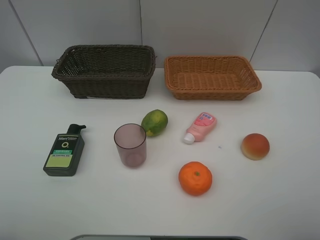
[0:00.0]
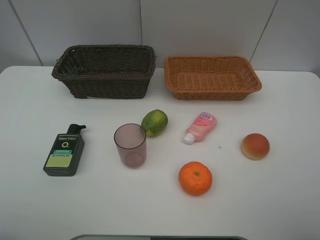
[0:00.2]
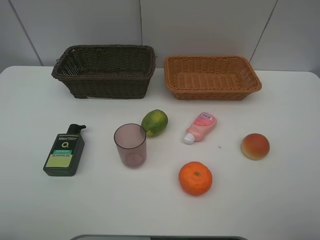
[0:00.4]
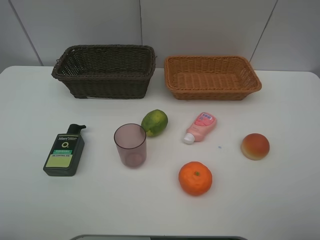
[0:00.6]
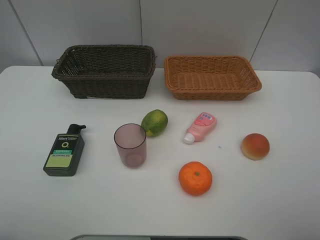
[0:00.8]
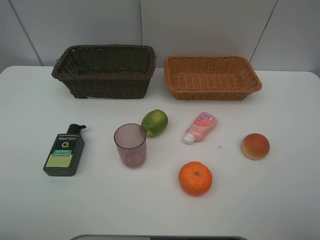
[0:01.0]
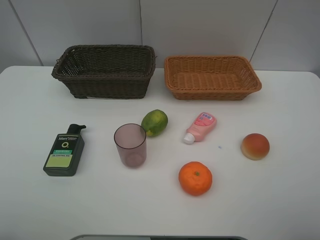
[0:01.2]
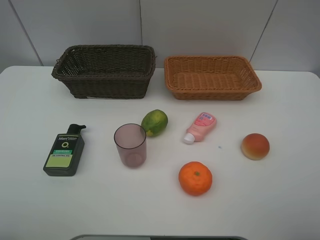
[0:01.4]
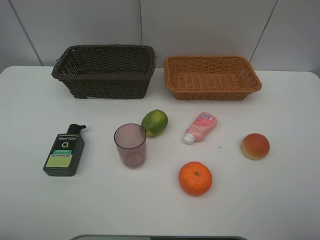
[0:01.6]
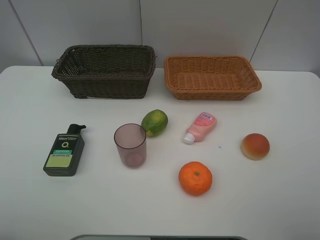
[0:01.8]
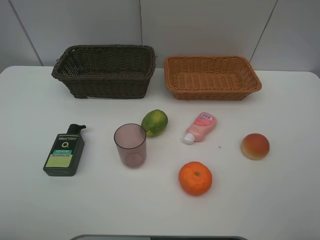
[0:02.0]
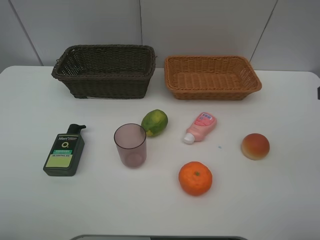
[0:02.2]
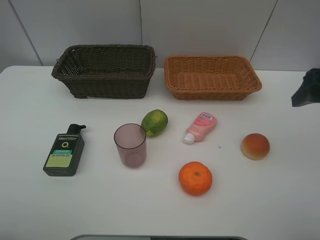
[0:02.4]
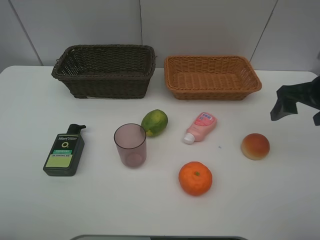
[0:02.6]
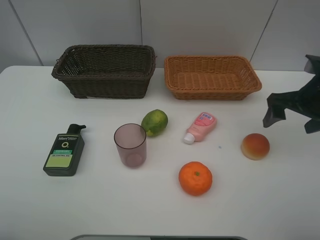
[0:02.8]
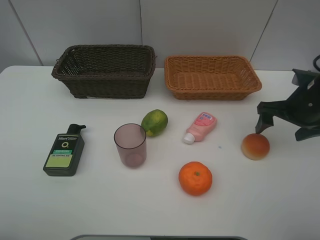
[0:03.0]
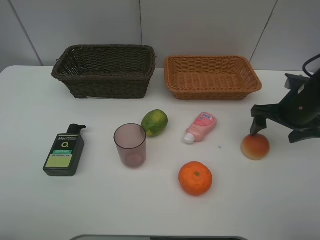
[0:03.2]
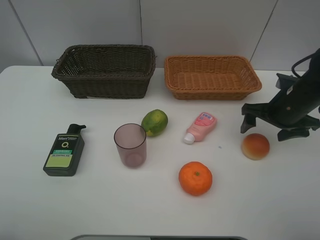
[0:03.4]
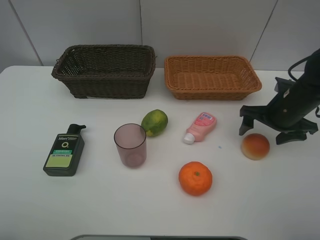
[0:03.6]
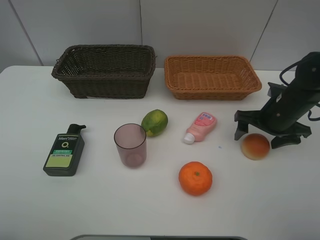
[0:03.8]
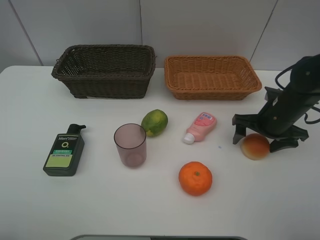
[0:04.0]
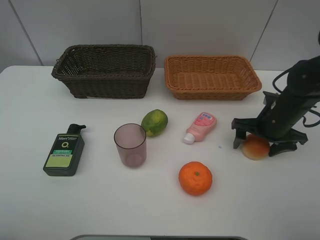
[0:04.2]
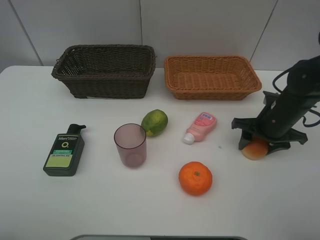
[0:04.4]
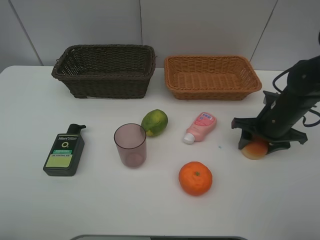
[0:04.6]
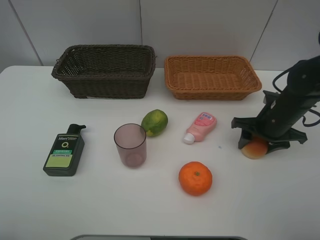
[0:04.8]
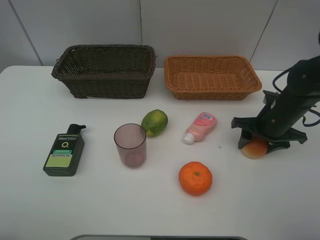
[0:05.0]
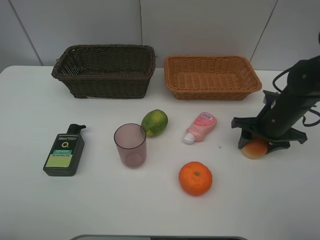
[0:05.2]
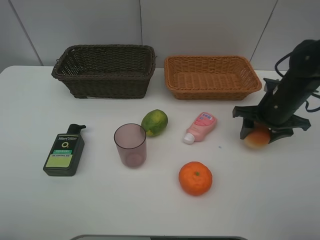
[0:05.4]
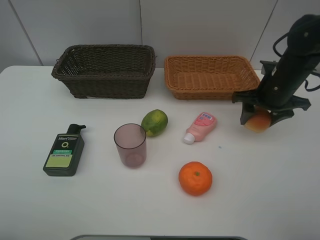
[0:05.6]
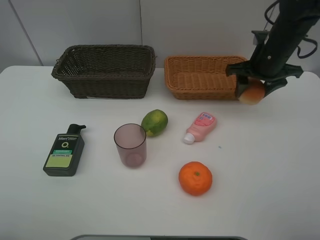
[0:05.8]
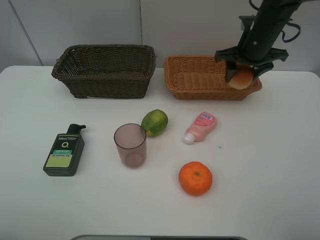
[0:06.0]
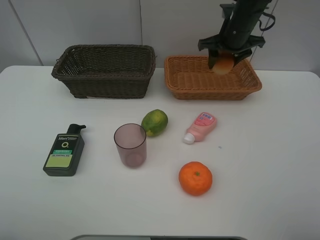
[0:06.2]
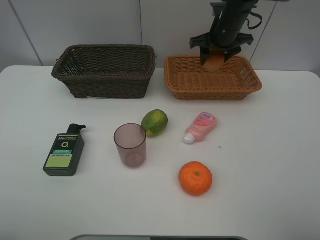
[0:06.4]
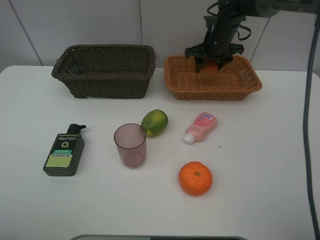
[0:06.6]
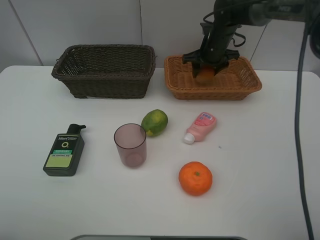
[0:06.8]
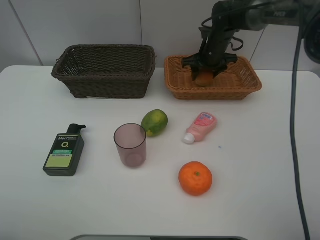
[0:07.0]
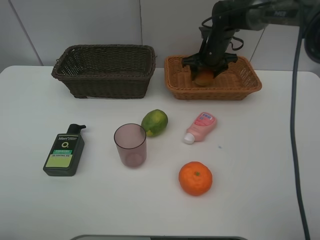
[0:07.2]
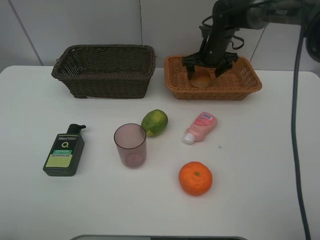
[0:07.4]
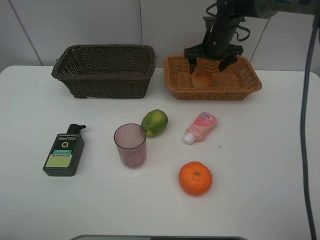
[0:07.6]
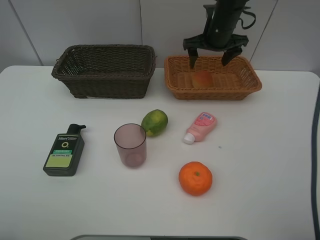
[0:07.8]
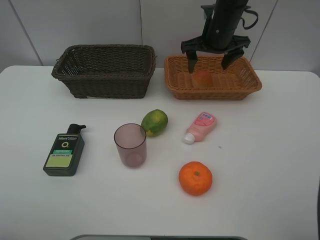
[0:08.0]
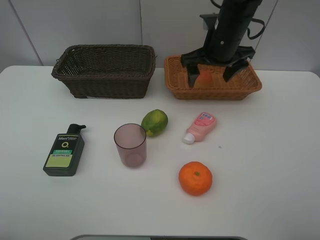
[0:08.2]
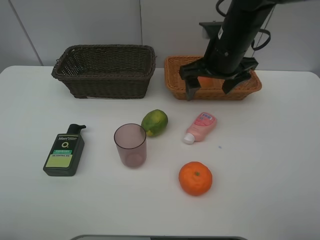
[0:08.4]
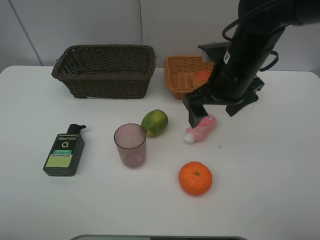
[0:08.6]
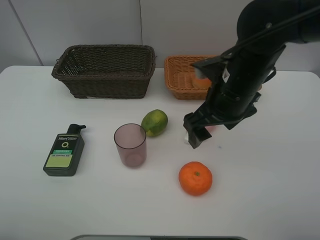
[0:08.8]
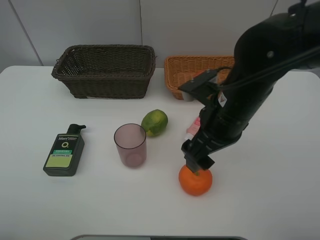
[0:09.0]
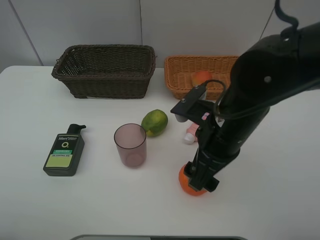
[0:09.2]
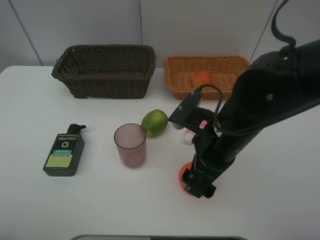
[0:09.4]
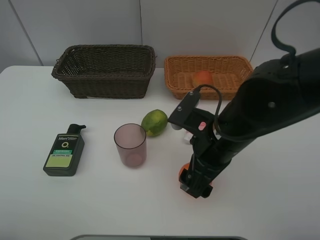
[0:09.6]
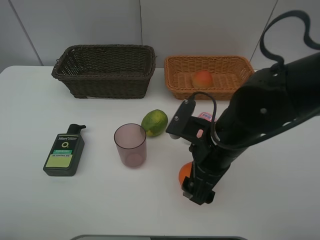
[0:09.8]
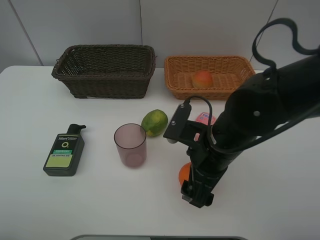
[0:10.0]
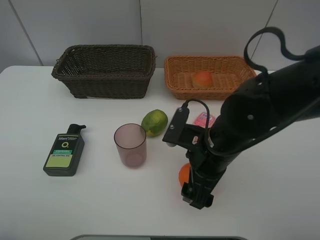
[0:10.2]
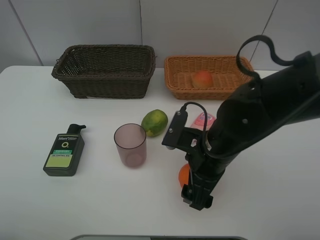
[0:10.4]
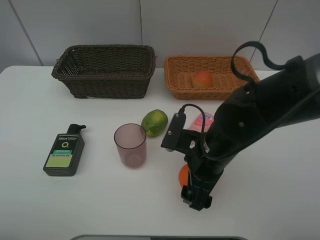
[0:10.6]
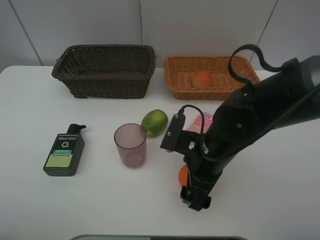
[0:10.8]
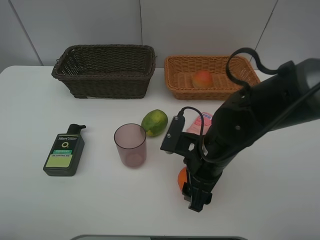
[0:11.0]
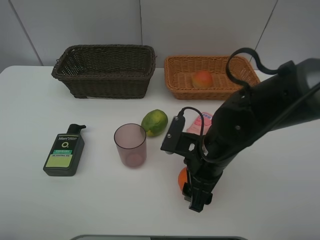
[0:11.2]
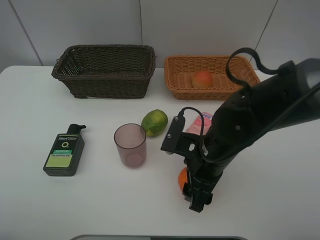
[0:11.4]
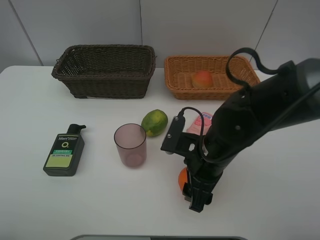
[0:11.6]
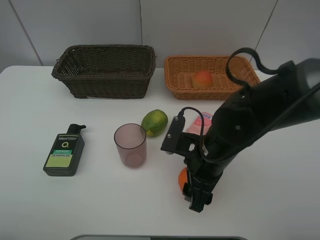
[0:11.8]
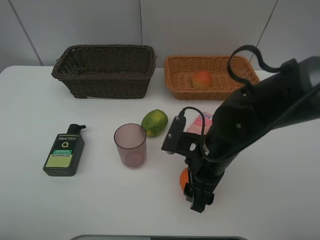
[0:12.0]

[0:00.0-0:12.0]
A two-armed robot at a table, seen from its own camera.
Task of the whole recording: place multiple objects separately in different baskets.
0:00.0 to 0:01.6: Both grippers stay put.
0:01.6 to 0:03.0: The right gripper is displaced forward and downward by about 30 cm.
0:03.0 to 0:04.4: The right gripper shifts about 5 cm downward, and closes.
0:04.4 to 0:06.0: The right gripper is displaced forward, upward and to the left by some 20 cm.
0:06.0 to 0:07.6: The right gripper heads forward and to the left, covering approximately 10 cm, and opens up.
0:07.6 to 0:09.0: The right gripper goes roughly 25 cm backward.
0:09.0 to 0:10.4: The right gripper heads downward, covering some 5 cm.
0:10.4 to 0:12.0: The right gripper closes up.

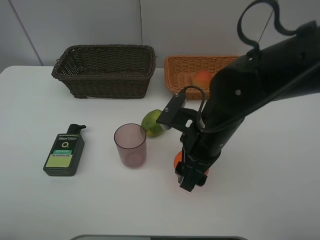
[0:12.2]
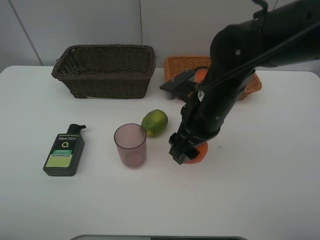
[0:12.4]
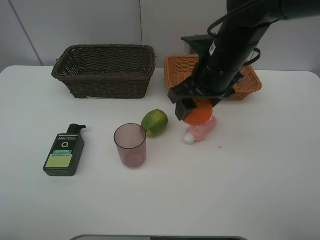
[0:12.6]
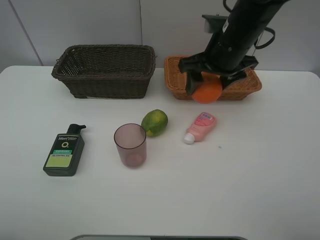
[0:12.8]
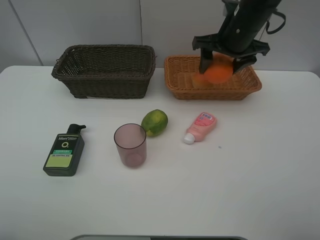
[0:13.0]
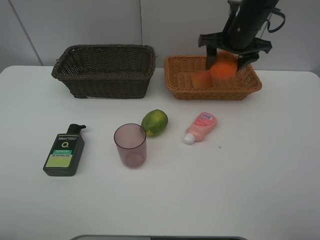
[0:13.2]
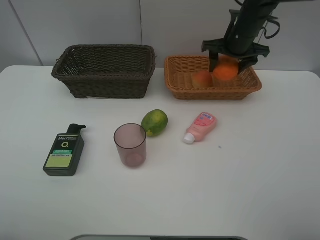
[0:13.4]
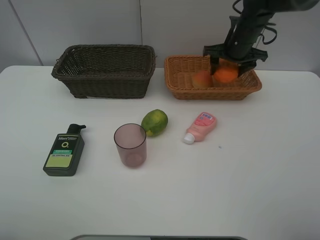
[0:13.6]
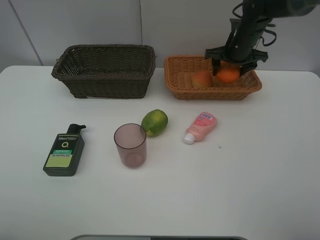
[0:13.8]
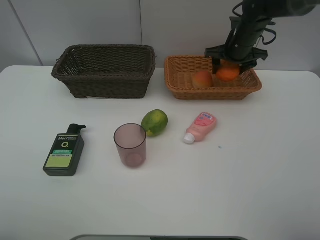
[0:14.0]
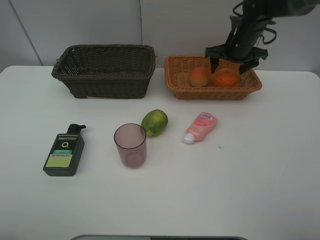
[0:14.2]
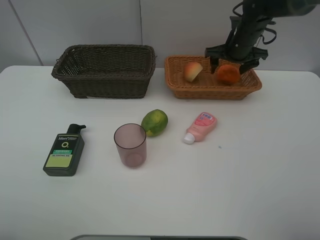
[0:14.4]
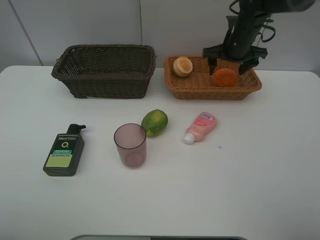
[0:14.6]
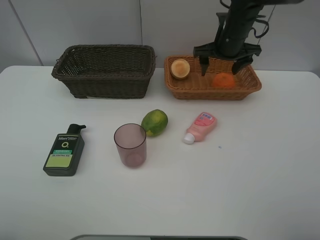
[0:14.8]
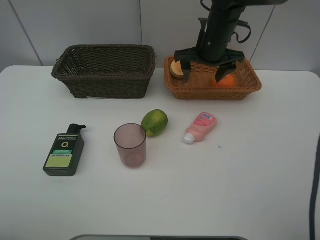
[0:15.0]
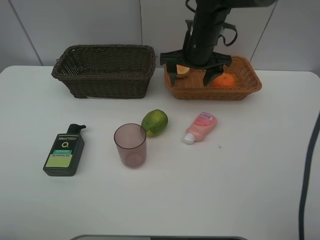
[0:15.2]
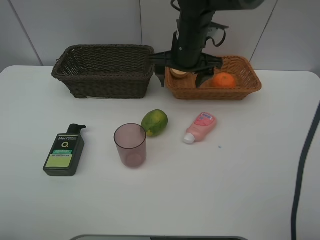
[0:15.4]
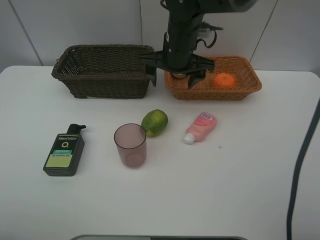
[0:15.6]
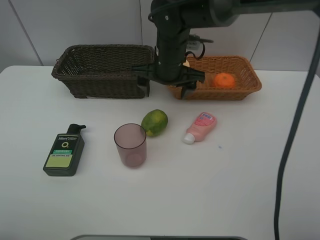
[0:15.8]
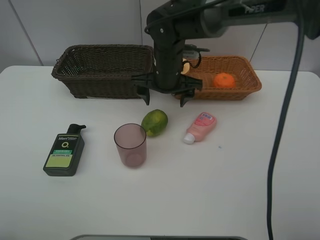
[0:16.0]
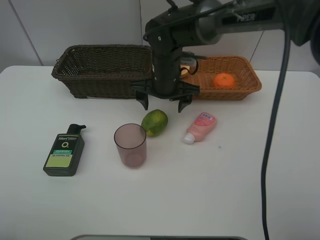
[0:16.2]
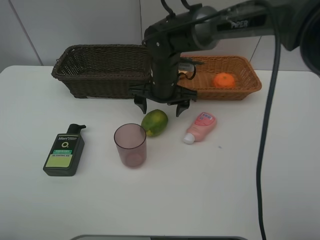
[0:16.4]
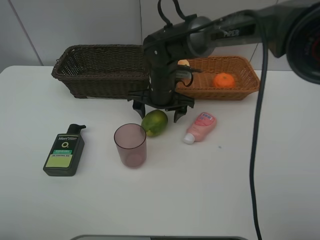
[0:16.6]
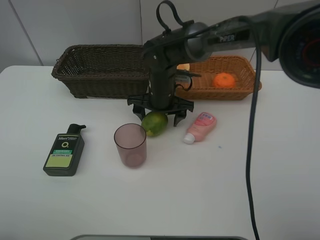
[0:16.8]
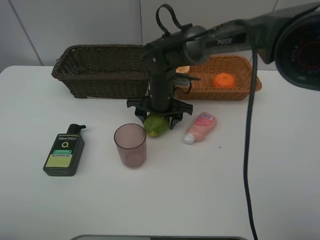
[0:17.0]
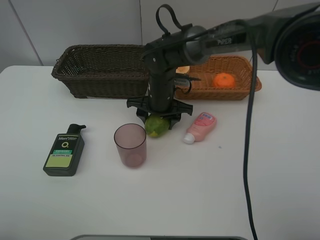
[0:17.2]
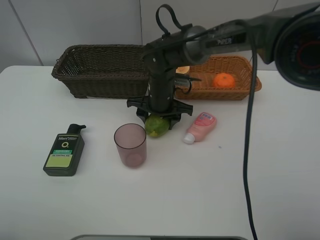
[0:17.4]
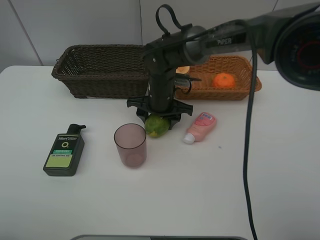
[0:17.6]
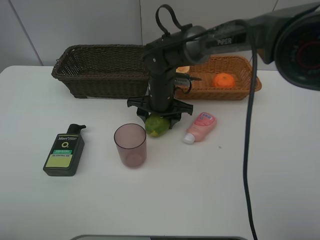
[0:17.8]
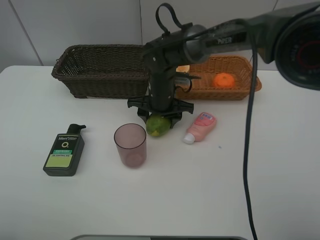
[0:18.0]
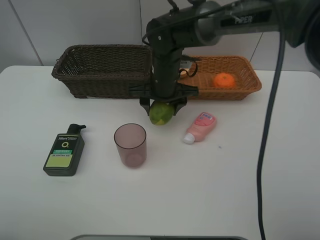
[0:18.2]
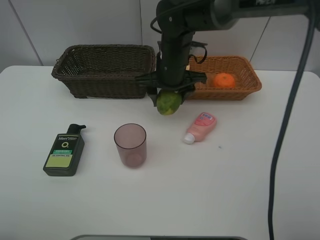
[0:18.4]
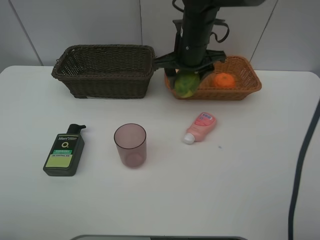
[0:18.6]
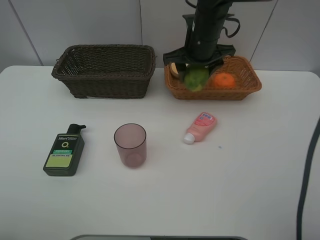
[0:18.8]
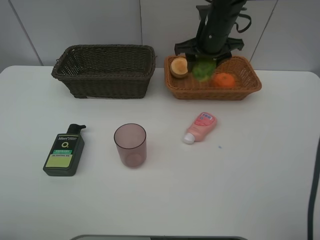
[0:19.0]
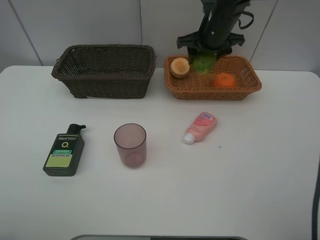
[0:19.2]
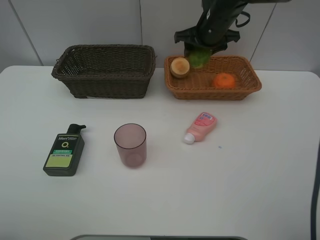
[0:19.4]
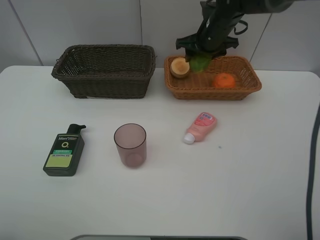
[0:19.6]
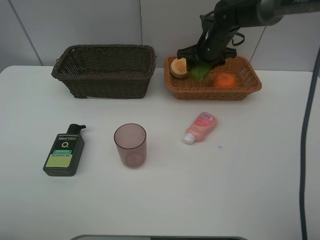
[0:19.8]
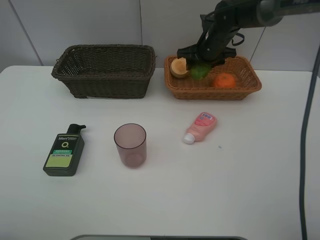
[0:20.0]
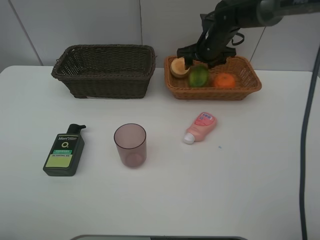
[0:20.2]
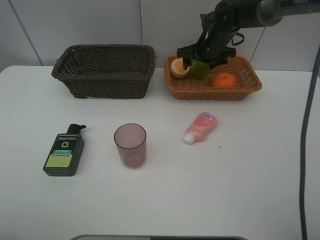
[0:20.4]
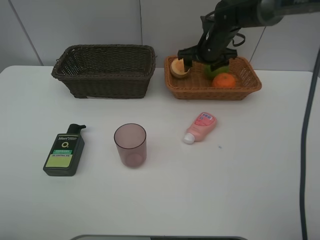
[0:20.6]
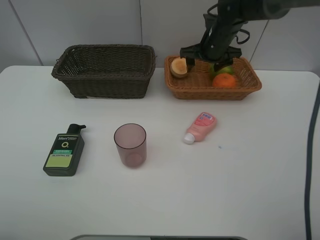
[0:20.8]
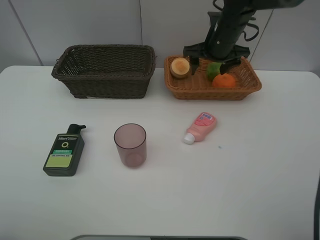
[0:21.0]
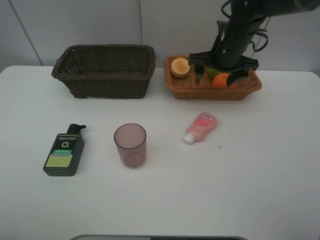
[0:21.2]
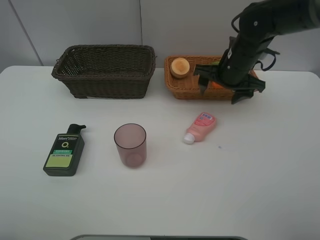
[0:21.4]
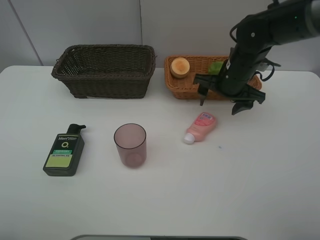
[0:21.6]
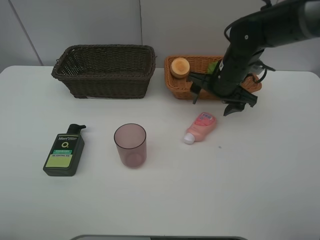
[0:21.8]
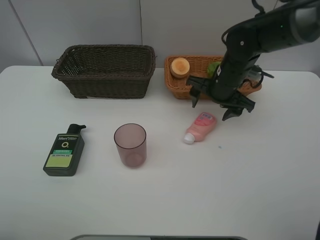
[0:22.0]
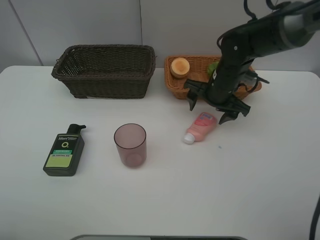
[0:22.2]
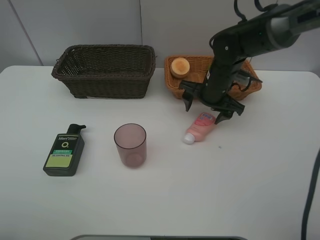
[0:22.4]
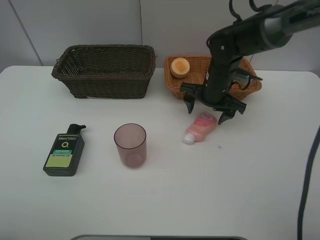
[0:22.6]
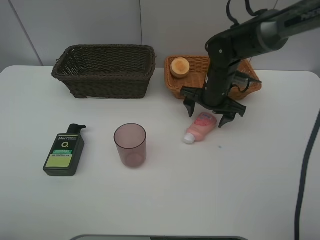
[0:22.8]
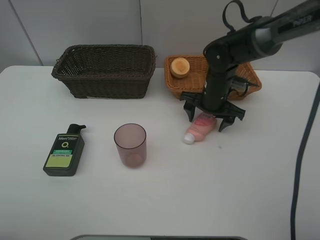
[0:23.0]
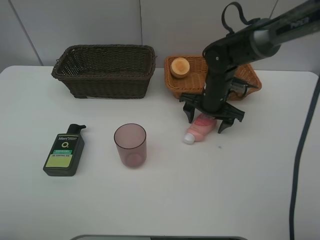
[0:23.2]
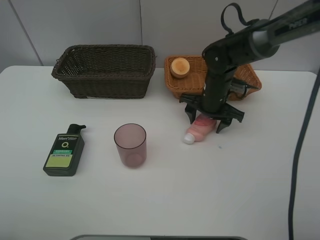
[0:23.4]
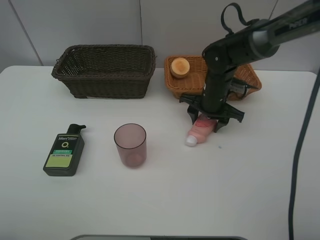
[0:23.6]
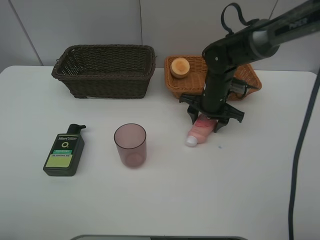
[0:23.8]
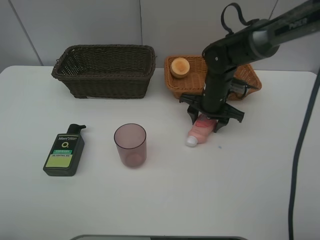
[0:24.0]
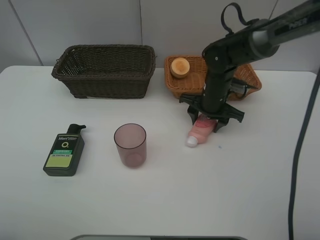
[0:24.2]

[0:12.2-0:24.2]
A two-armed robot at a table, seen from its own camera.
Task of the whole recording: place multiple objects separately in different baskets.
0:12.2 to 0:13.8: The right gripper goes about 30 cm forward and to the right.
0:13.8 to 0:15.2: The right gripper heads to the left and backward, covering approximately 15 cm.
0:15.2 to 0:16.6: The right gripper goes some 10 cm downward and to the left.
0:16.6 to 0:18.2: The right gripper closes its fingers.
0:18.2 to 0:19.8: The right gripper is displaced to the right and forward by roughly 15 cm.
0:19.8 to 0:21.2: The right gripper travels backward by approximately 5 cm, and opens up.
0:21.2 to 0:22.6: The right gripper travels downward by about 5 cm.
0:22.6 to 0:24.2: The right gripper closes its fingers.
